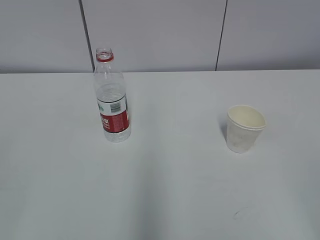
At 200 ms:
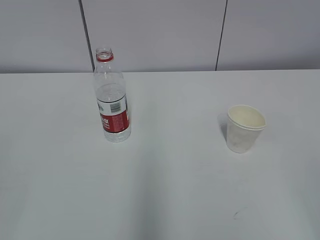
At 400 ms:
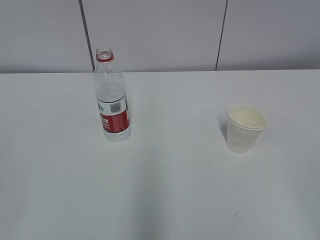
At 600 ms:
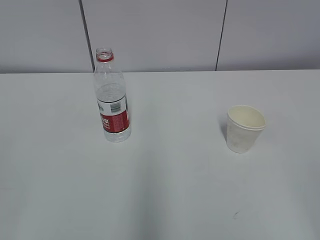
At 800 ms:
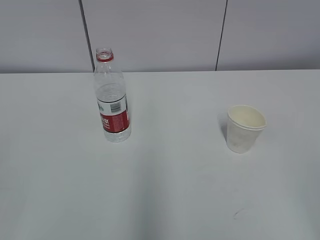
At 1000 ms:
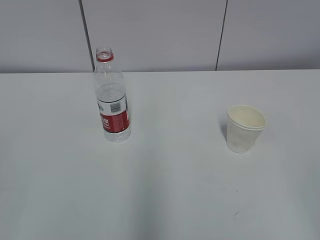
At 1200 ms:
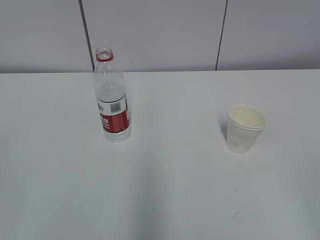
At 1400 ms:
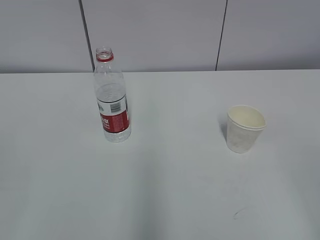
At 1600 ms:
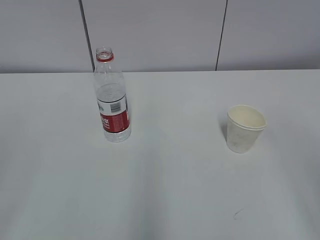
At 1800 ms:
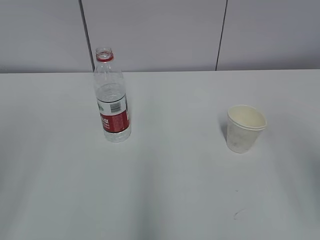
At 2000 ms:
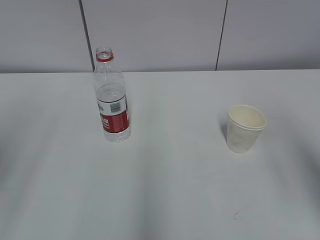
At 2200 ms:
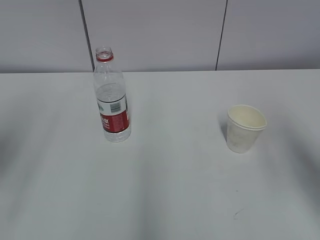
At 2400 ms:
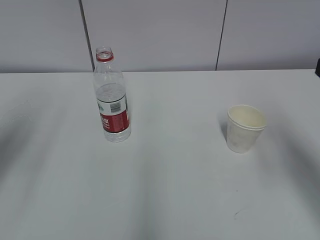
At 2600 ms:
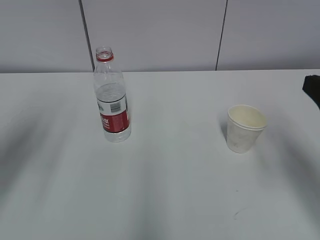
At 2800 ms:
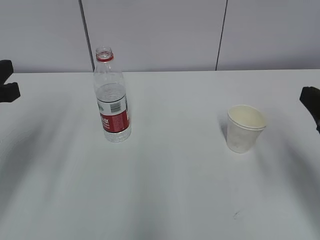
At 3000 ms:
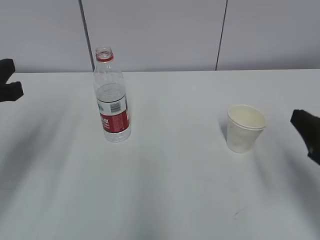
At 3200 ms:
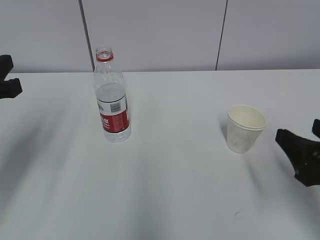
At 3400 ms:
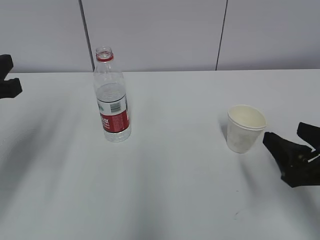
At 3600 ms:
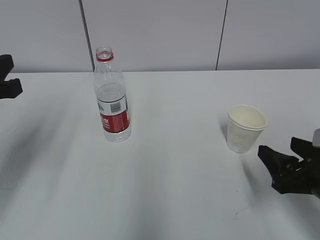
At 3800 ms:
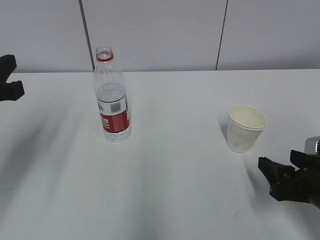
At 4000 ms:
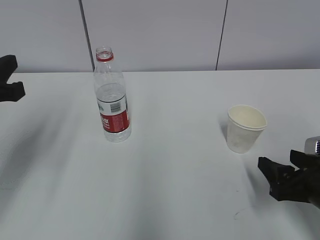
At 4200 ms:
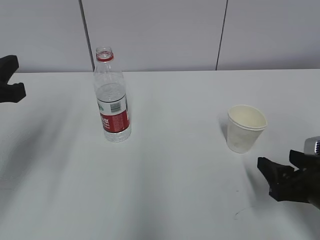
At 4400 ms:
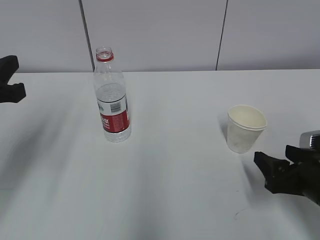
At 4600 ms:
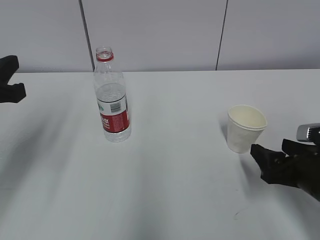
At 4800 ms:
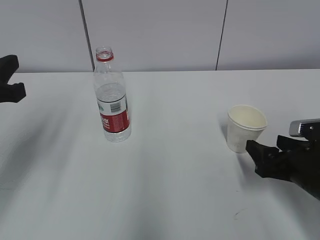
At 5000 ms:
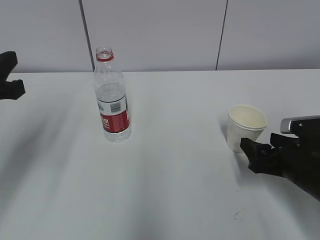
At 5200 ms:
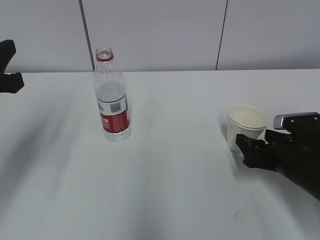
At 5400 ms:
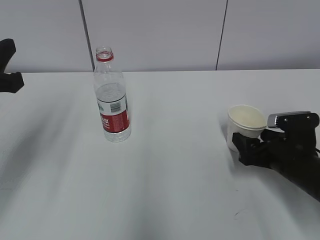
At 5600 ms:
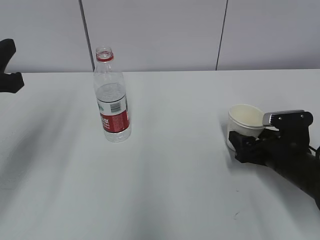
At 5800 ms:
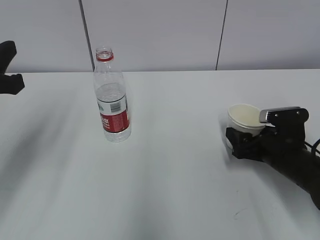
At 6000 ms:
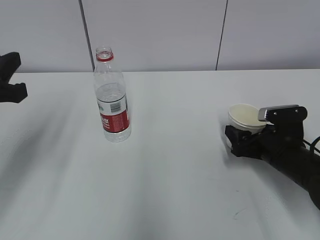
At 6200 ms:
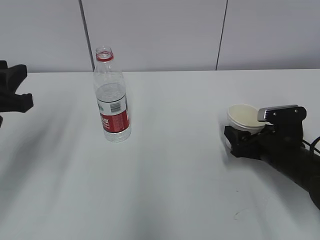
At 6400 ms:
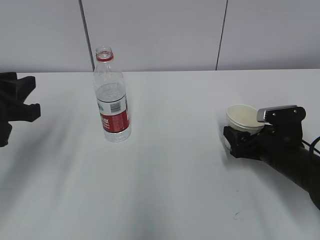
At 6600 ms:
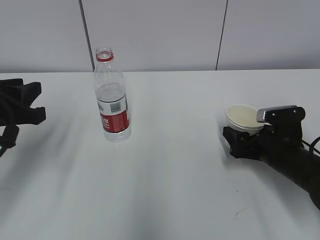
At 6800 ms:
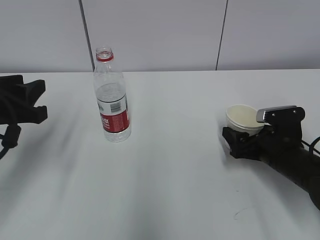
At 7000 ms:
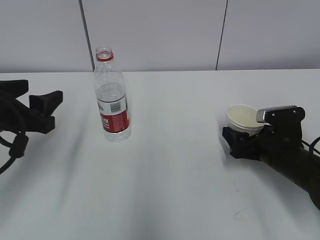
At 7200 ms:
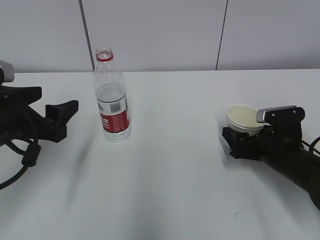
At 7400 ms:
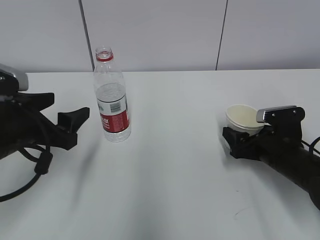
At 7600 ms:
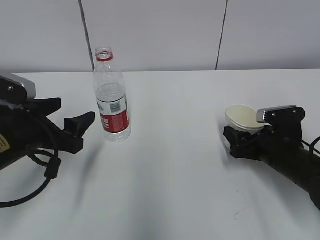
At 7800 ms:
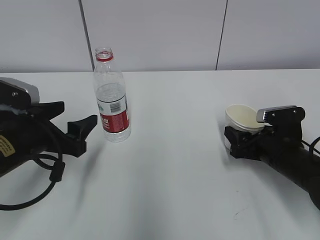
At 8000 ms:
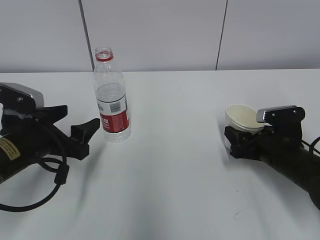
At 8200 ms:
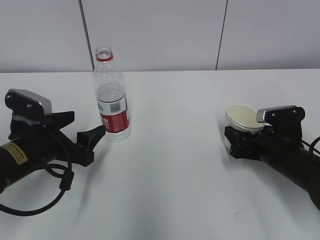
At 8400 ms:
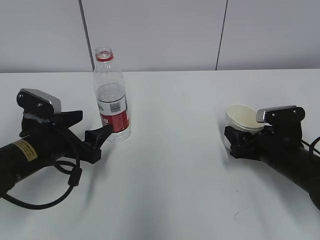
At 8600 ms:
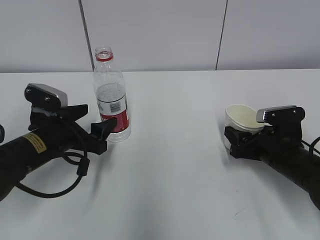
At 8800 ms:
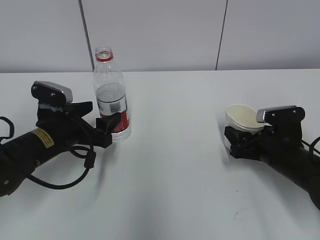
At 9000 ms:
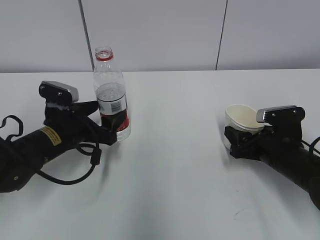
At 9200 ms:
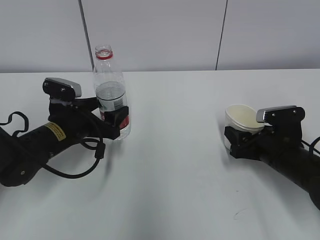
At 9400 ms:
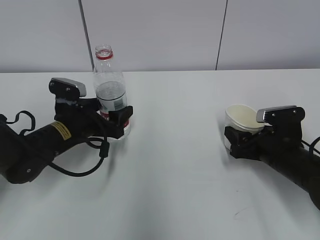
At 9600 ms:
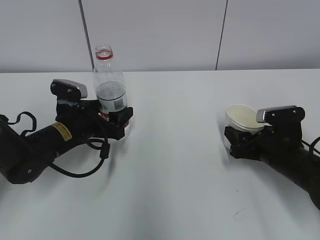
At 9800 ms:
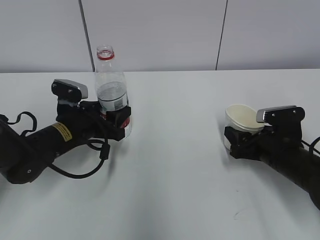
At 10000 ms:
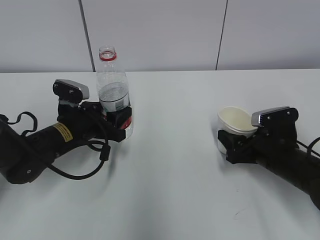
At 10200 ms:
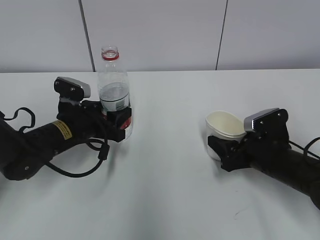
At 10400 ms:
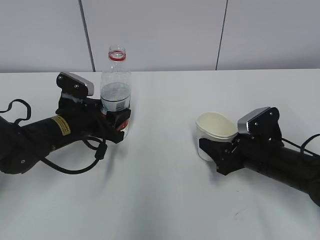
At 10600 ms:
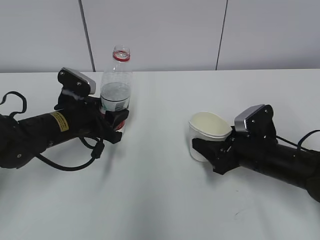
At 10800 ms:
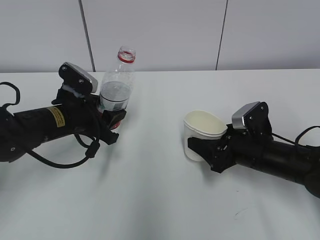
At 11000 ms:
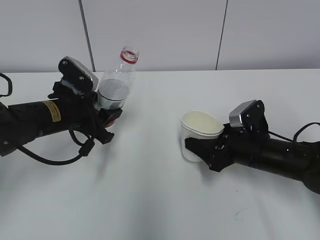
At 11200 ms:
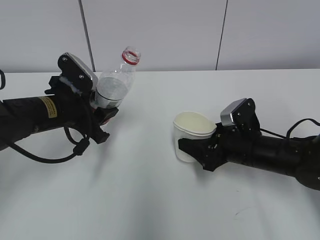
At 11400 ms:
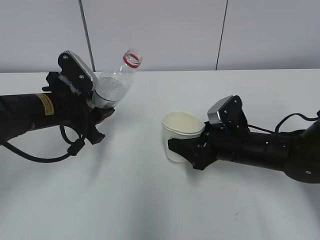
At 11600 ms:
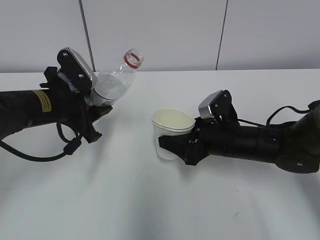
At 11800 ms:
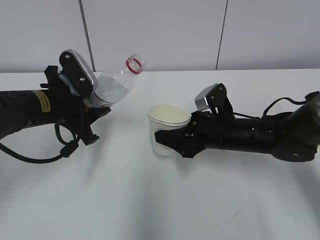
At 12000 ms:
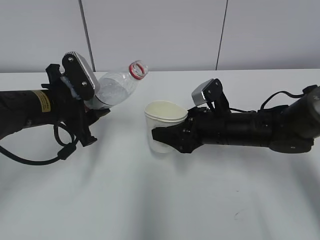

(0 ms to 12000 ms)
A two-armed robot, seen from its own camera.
Step, 0 ms - 8200 ms: Grab the paper cup with the right hand.
1600 ms - 3000 ms: The right gripper shifts roughly 20 cm forward and downward. The left gripper goes approximately 20 cm forward.
3000 ms - 4400 ms: The right gripper shifts about 10 cm downward.
4400 ms - 6000 ms: The right gripper is displaced forward by some 10 cm.
6000 ms - 7600 ms: The left gripper travels downward by some 10 cm, and opens its fingers.
7600 ms - 9000 ms: The left gripper travels forward and downward by roughly 10 cm.
9000 ms - 10400 ms: The left gripper closes its fingers.
10400 ms - 12000 ms: The left gripper shifts roughly 5 cm upward; the right gripper travels to the left and forward by roughly 10 cm.

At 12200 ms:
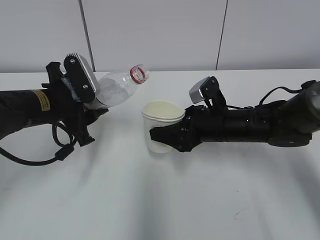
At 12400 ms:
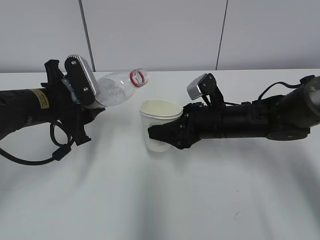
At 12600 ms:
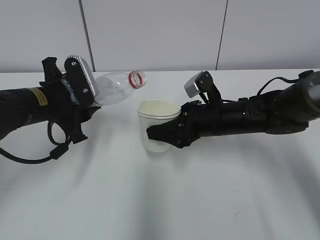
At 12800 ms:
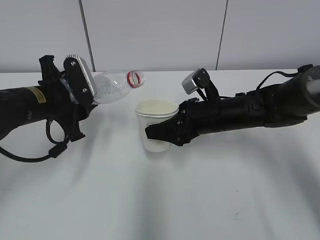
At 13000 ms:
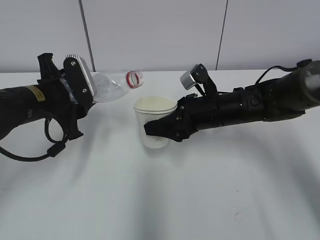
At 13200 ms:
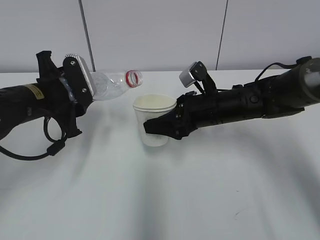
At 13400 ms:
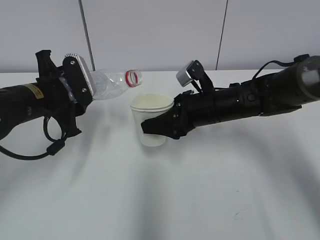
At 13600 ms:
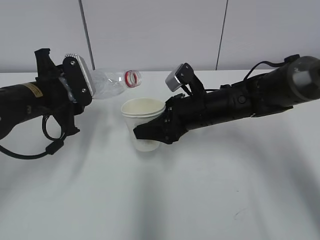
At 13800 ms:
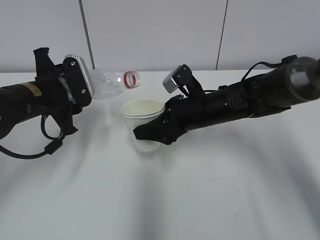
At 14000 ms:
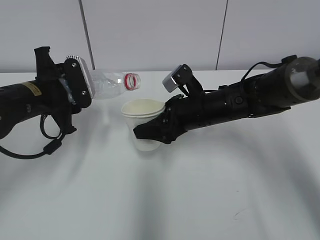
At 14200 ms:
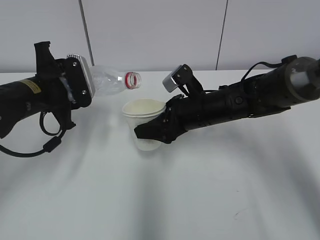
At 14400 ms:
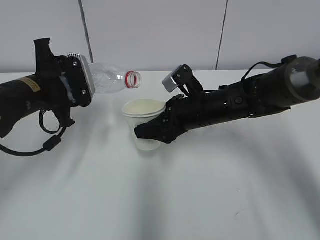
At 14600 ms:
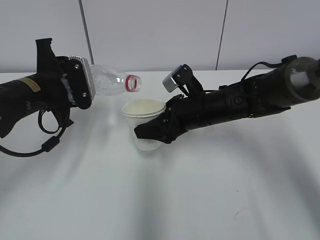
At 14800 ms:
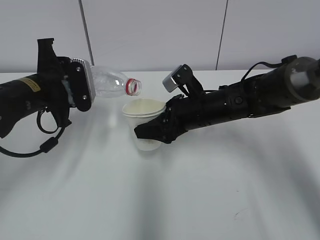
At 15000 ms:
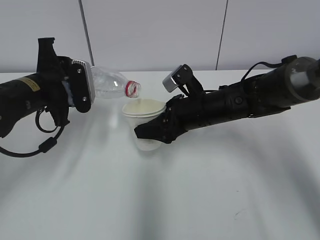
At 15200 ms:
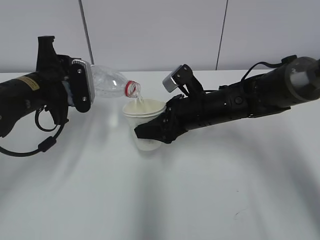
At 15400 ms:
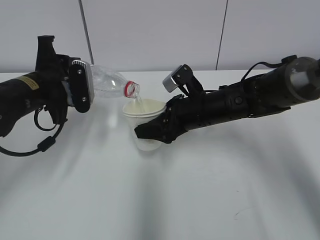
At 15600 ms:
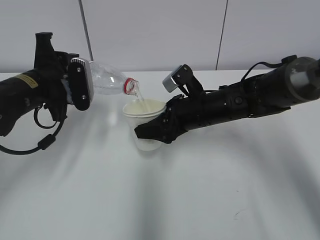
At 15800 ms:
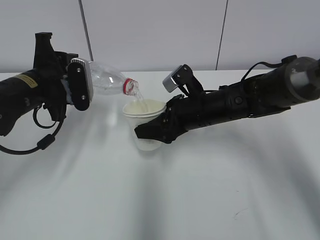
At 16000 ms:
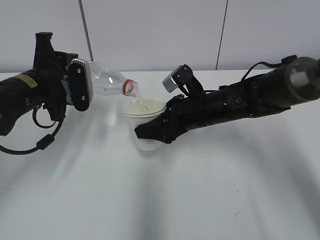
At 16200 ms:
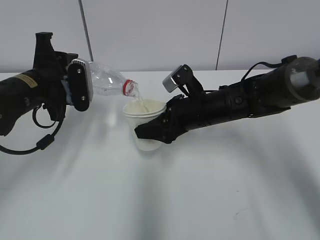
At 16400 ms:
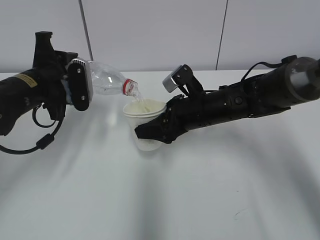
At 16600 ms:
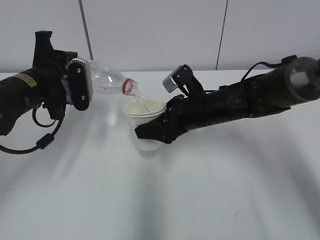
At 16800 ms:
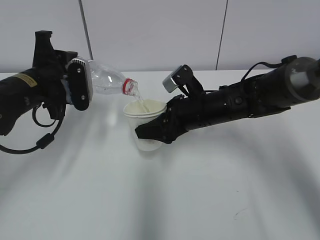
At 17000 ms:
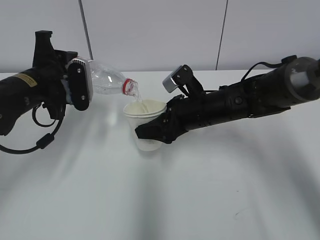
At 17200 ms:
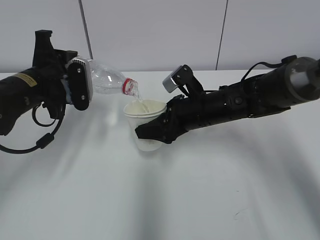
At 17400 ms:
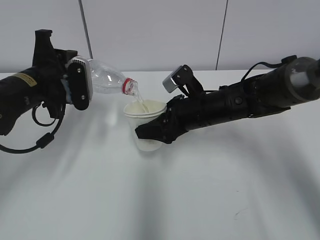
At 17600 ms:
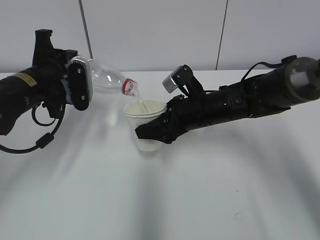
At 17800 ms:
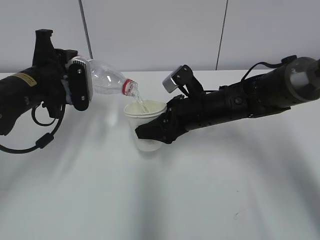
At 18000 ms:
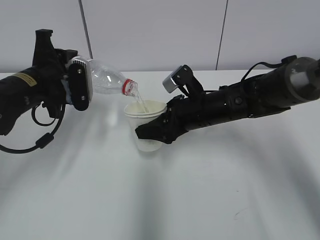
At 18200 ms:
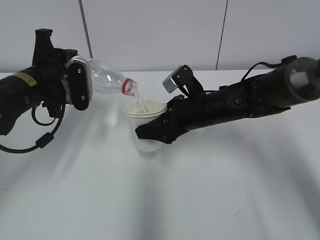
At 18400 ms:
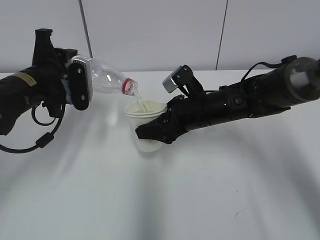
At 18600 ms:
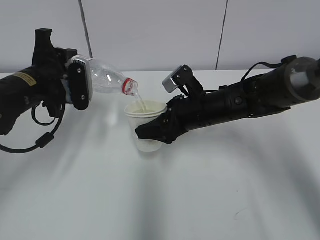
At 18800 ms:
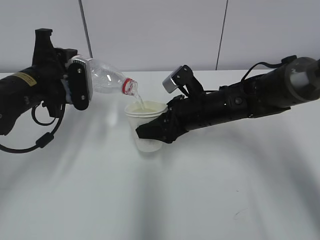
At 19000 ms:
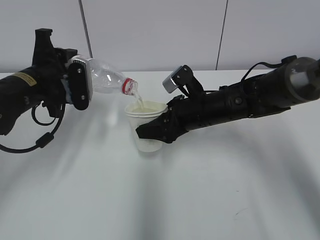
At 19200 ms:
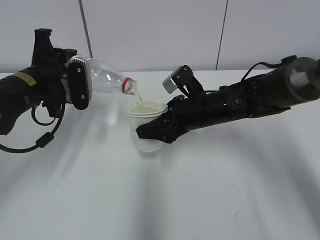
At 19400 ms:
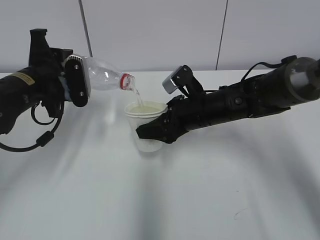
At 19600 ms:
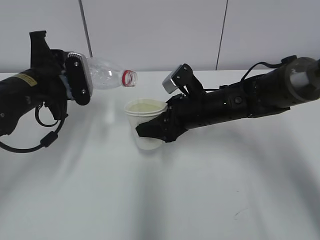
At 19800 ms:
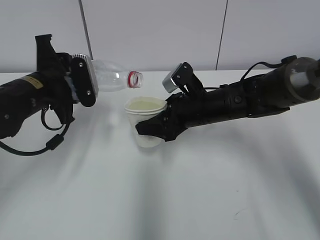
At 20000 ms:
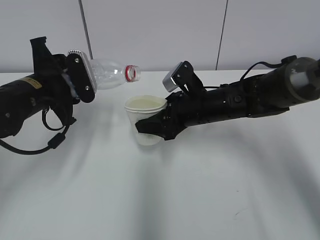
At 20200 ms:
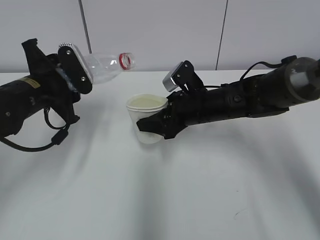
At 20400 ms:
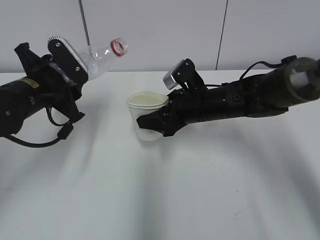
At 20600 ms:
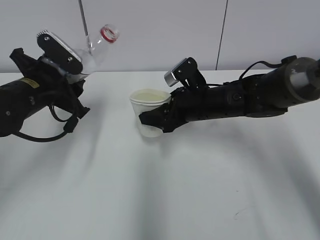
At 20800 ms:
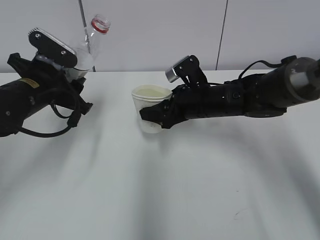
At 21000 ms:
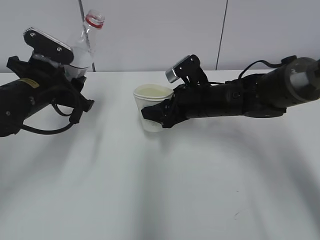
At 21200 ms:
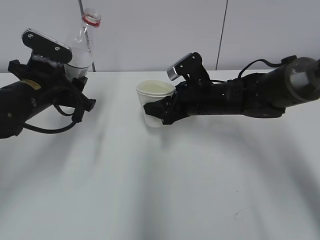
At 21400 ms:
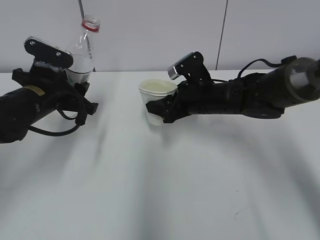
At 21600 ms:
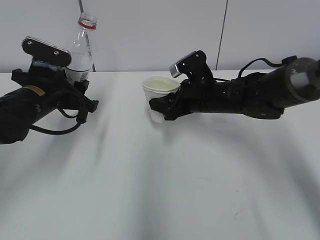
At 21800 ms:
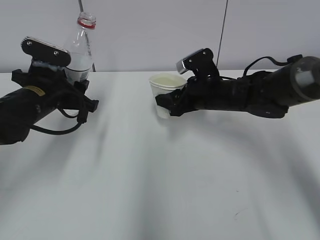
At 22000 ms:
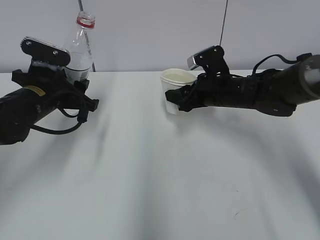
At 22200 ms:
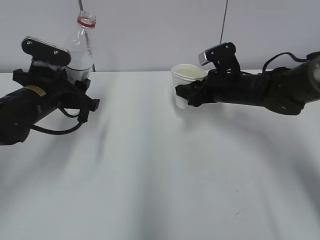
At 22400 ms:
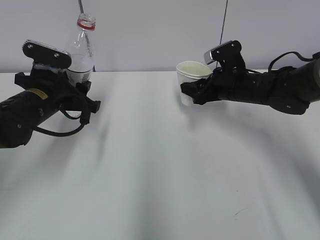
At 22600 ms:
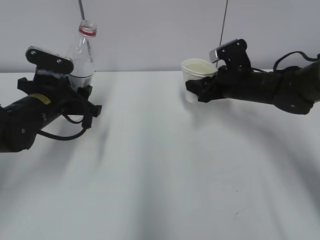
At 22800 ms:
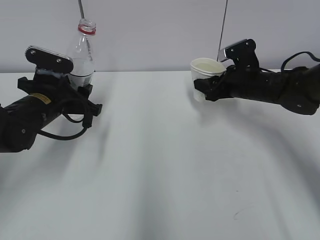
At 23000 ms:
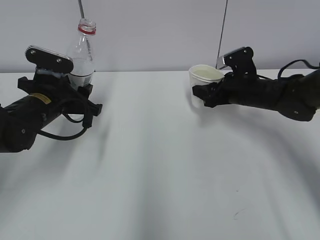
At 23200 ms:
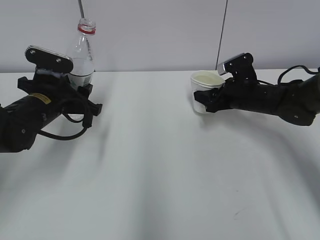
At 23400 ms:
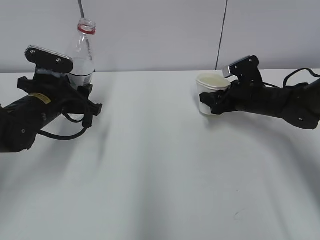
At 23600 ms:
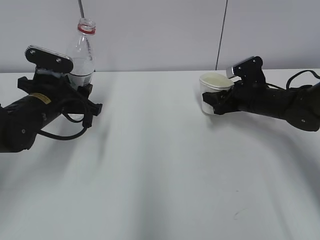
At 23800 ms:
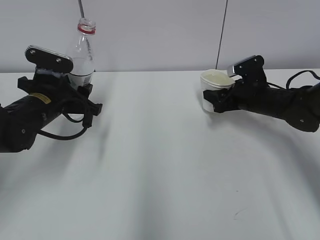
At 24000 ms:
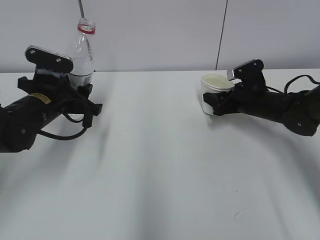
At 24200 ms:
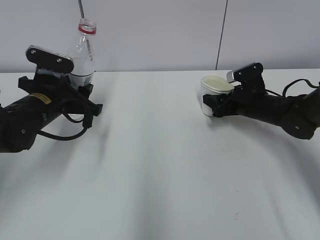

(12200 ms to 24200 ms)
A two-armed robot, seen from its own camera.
Step, 12600 ms - 16400 ms: Fill water with the right hand.
Step, 12600 ms - 16400 ms: Pour water with the left hand.
Step, 18200 ms - 21200 ms: Place the paper cup with the right hand.
13800 ms - 15200 ms: The grippers move only a little.
15200 ms - 16600 ms: Neither gripper changes place.
16600 ms - 18200 ms: Both grippers stay about where they are.
18200 ms - 19800 ms: The grippers stay close to where they were, moving slightly.
21200 ms - 22600 ms: The right gripper heads to the right, covering some 10 cm.
22600 ms - 24200 ms: The right gripper is displaced downward by approximately 5 cm.
